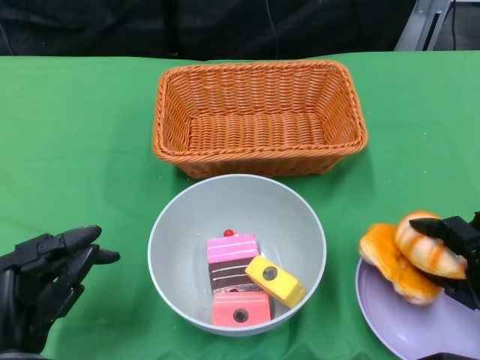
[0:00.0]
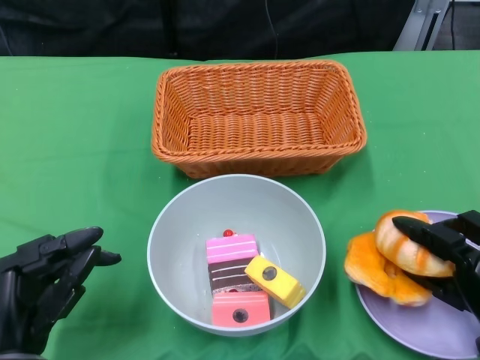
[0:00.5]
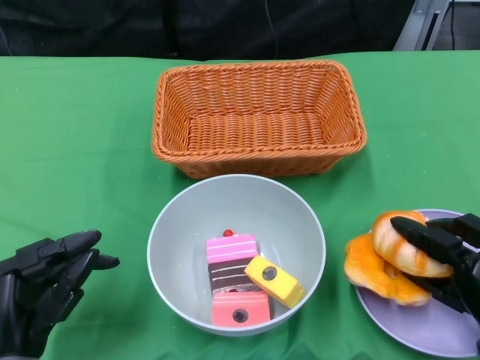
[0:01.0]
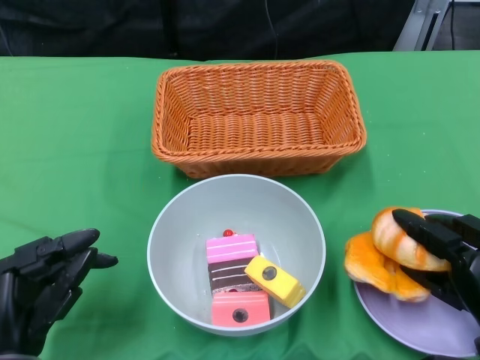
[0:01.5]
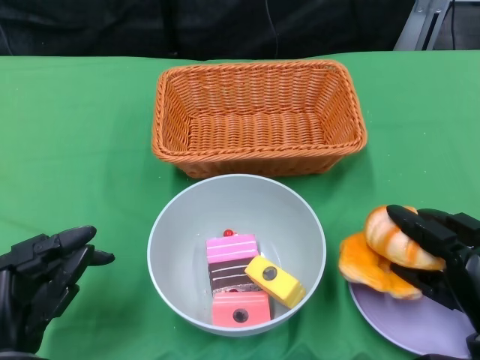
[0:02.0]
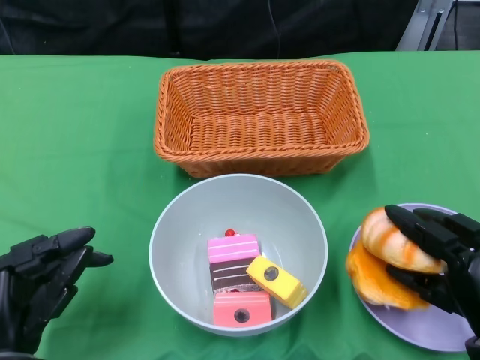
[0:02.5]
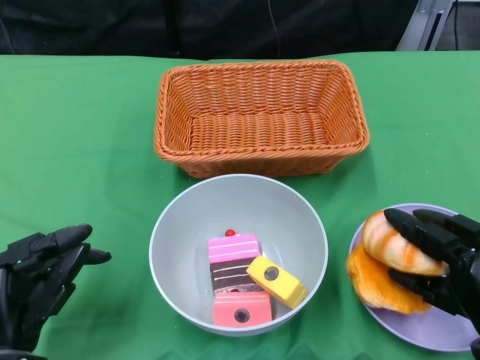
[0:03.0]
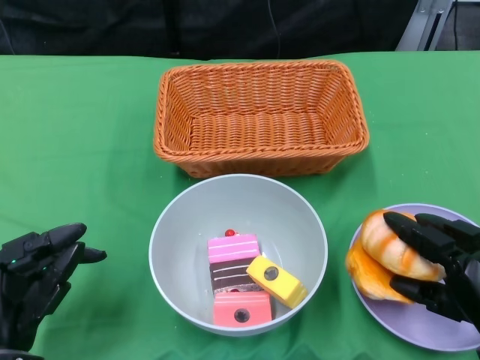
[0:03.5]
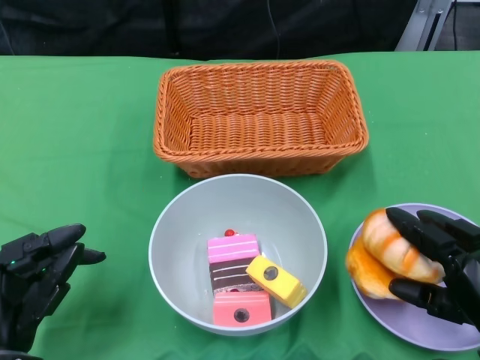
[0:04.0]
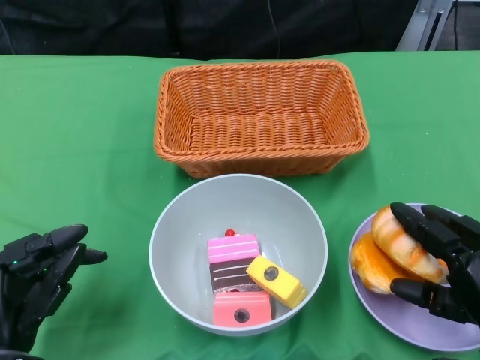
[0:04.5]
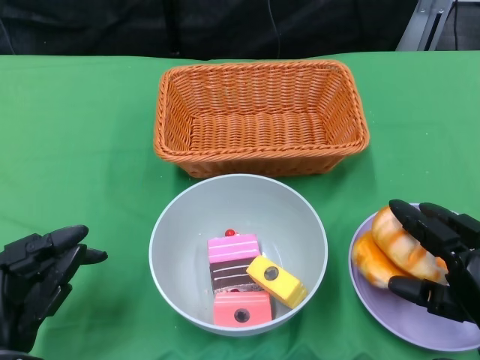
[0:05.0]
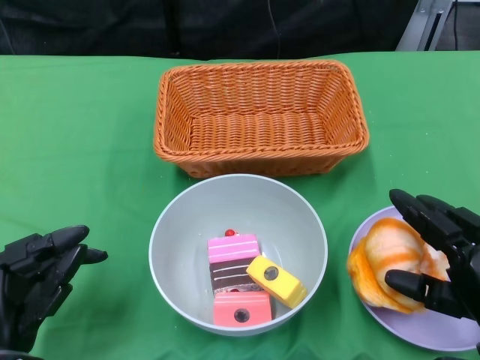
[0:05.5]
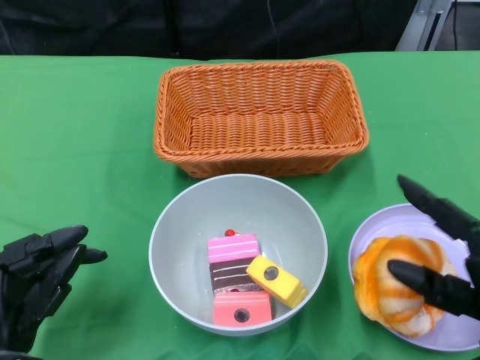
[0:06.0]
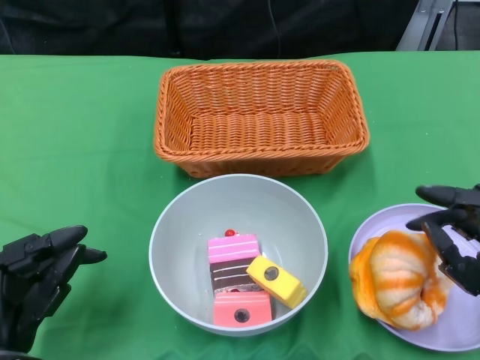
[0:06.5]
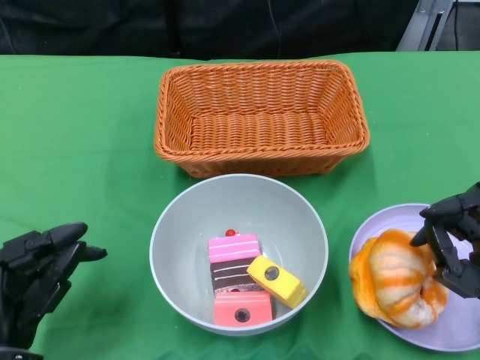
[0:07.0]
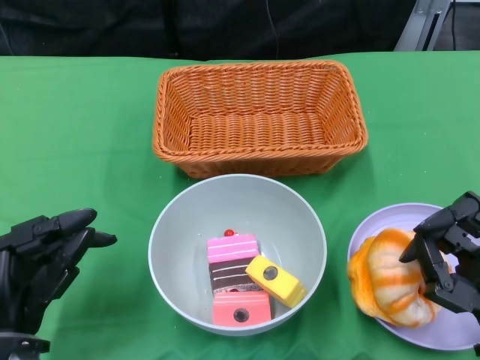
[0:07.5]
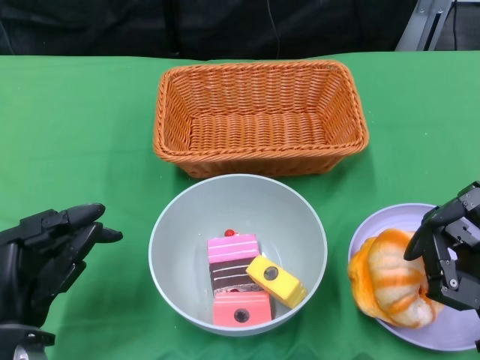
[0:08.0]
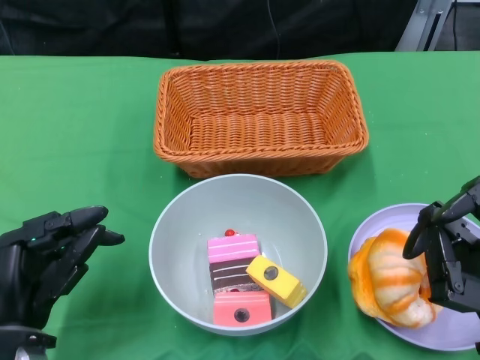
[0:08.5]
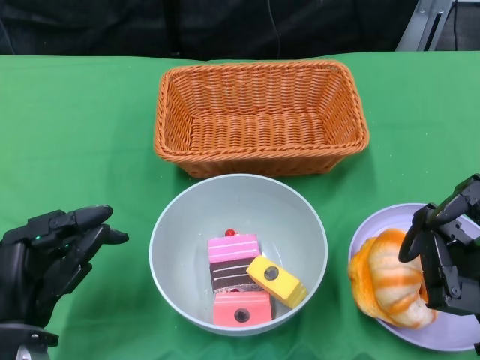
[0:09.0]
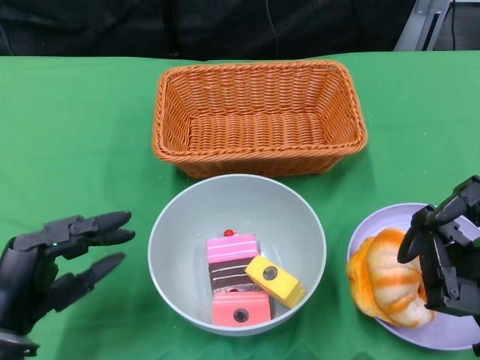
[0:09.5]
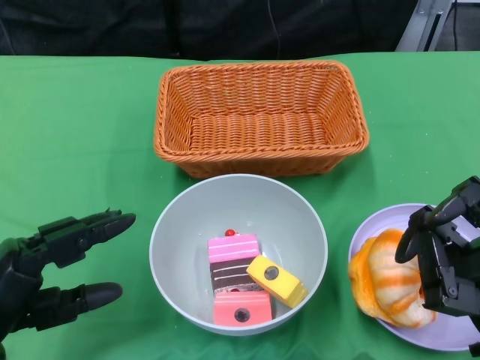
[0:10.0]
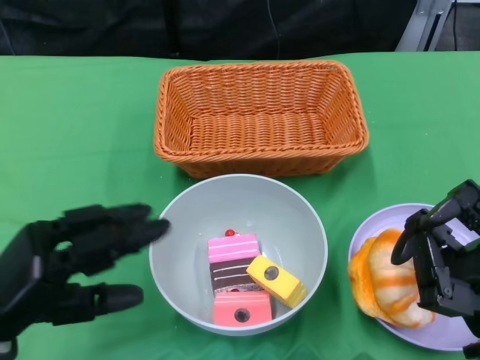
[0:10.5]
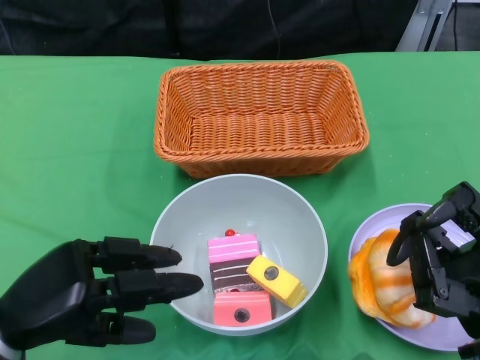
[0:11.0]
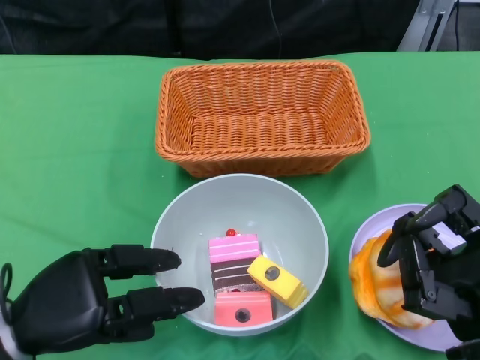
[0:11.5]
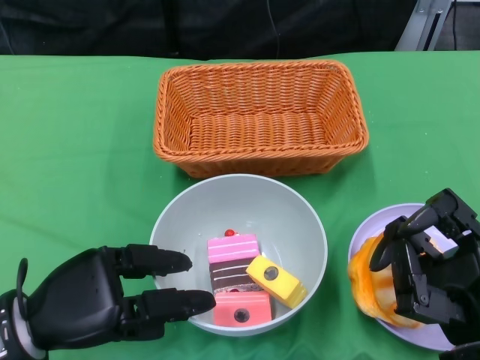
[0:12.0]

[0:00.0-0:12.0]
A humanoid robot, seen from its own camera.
Step, 0:00.0 to 0:08.5: Pick up the bread with the right gripper and place it on the plate.
0:00.0 to 0:04.0: The hands move only a little.
0:08.0 to 0:10.0: The left hand ends up some 5 cm from where it was.

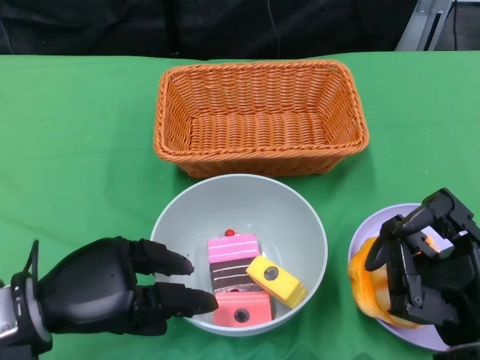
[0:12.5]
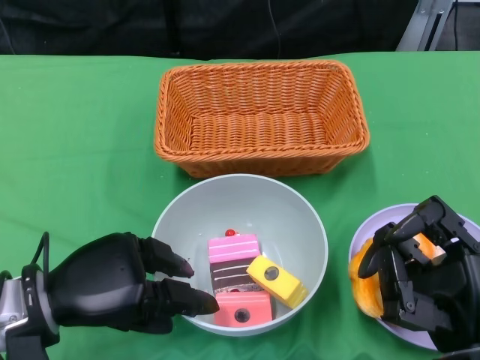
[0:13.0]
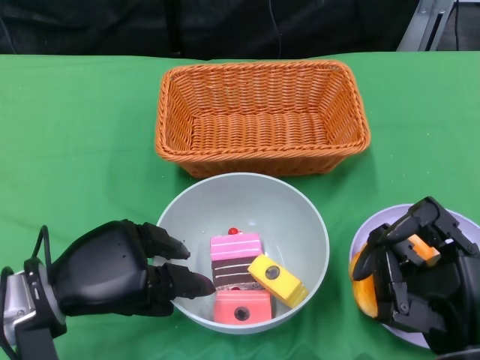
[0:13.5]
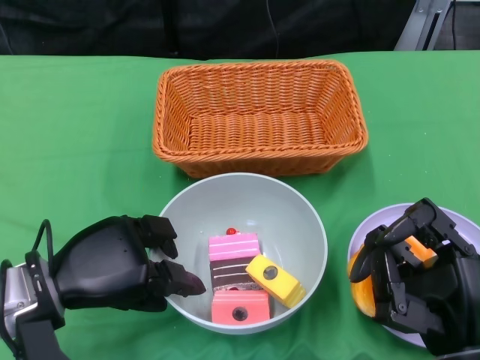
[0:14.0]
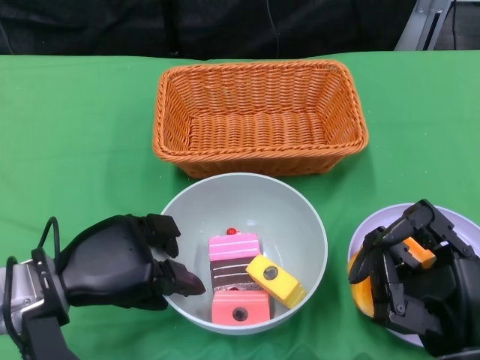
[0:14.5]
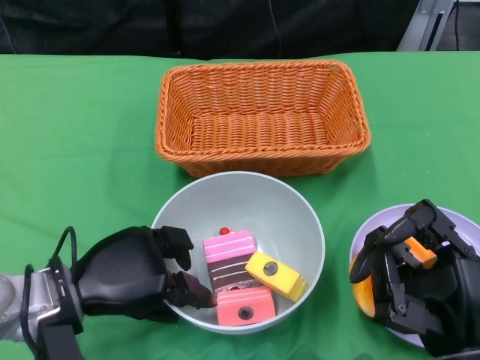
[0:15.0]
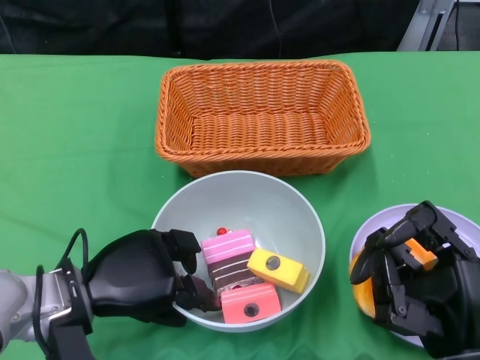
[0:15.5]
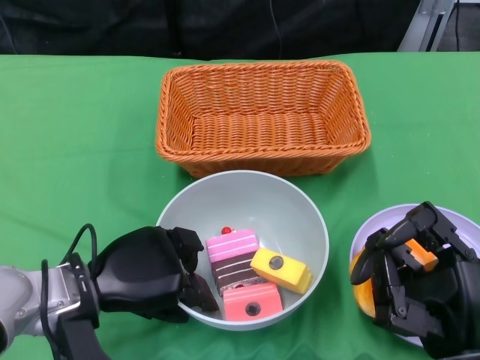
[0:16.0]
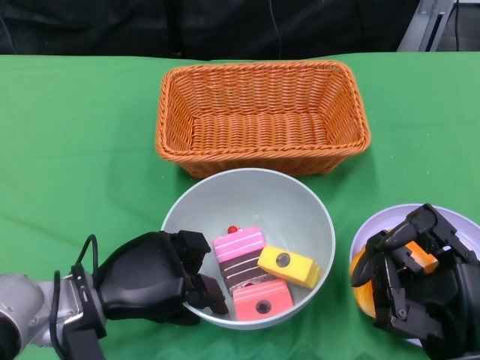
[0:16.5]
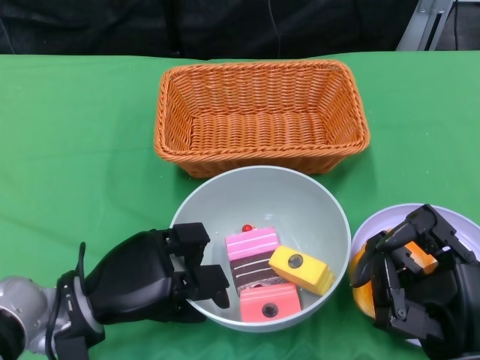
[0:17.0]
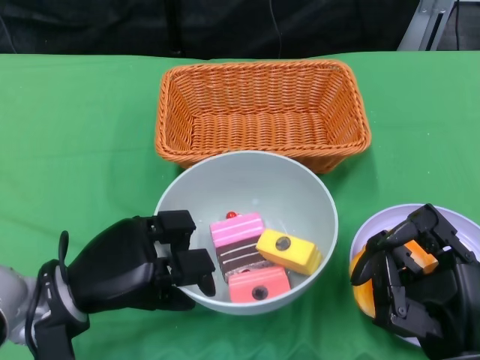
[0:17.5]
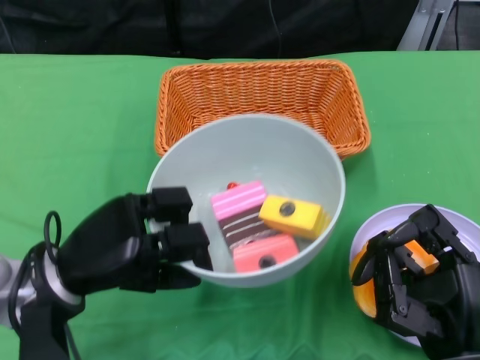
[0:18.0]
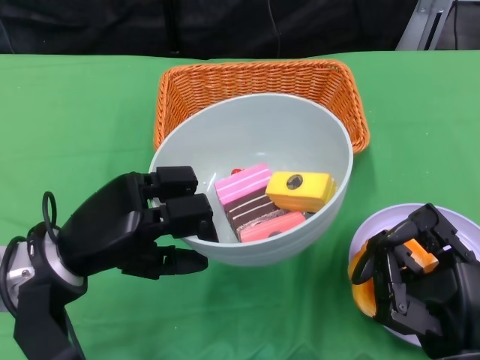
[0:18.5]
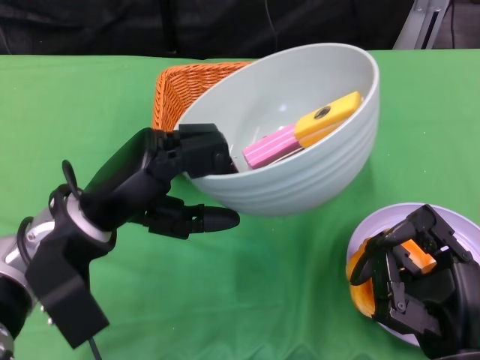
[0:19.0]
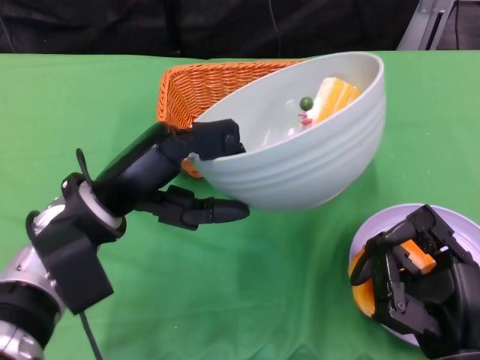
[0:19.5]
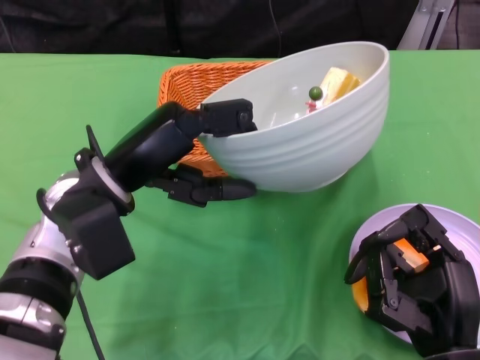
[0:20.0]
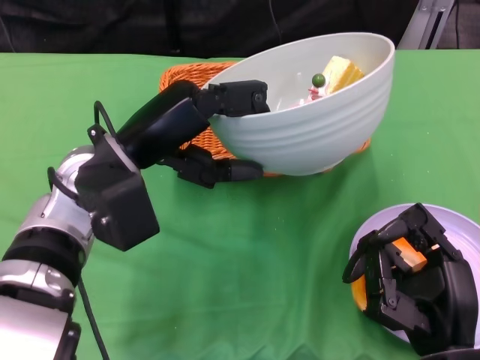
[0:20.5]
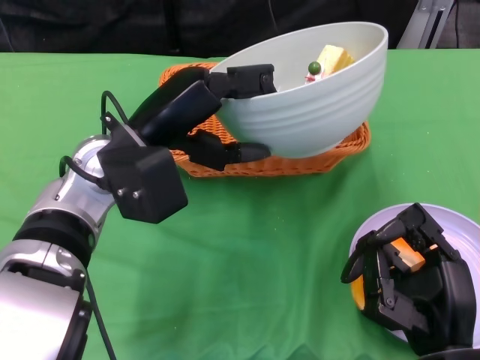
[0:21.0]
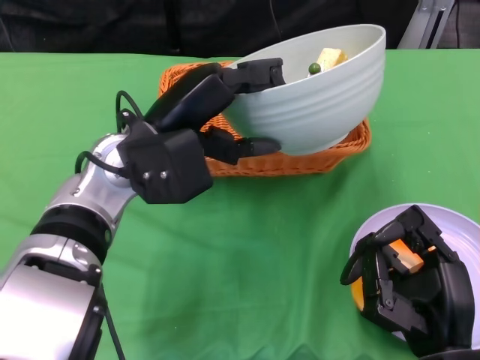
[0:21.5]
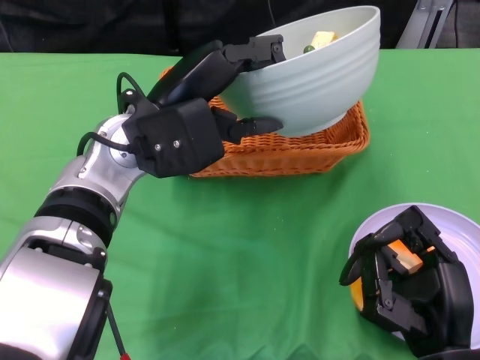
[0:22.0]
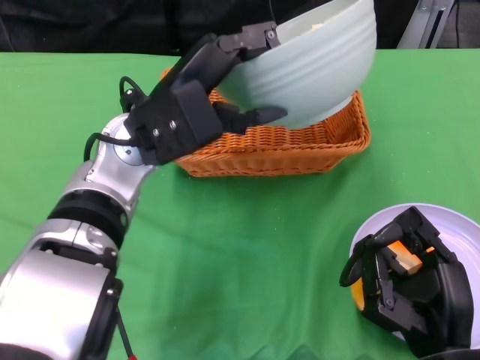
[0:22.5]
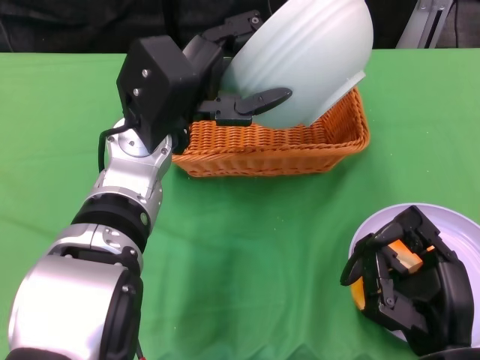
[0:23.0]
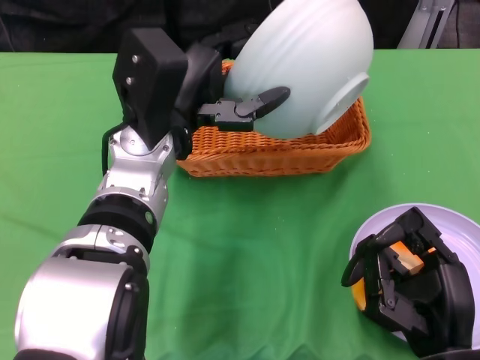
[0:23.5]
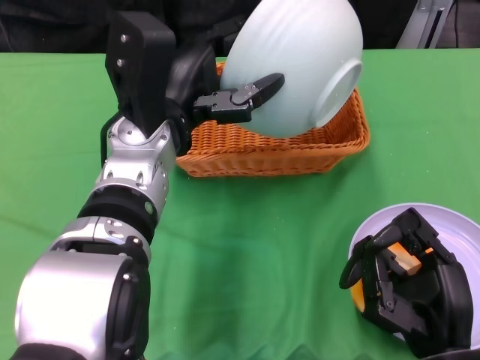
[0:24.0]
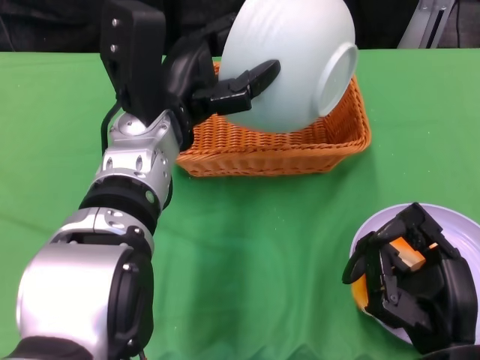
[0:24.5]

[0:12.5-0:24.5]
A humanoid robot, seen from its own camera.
Step, 0:12.5 to 0:16.0: Grasp the bowl with the left gripper.
0:12.5 to 0:14.5: The hands stay close to where they were, moving slightly.
0:16.5 to 0:18.5: The left hand shifts roughly 5 cm upward.
0:18.5 to 0:20.5: The left hand goes about 10 cm upward, forward and to the right.

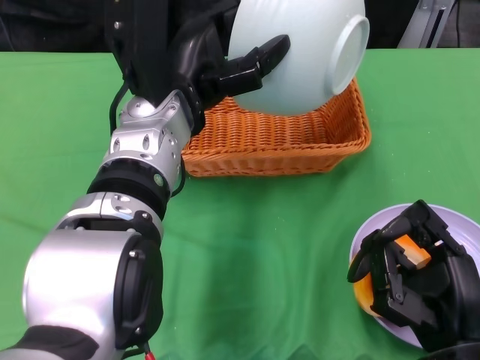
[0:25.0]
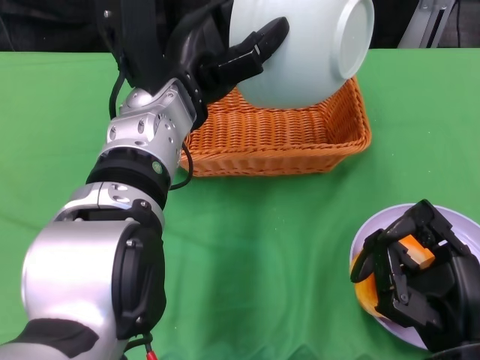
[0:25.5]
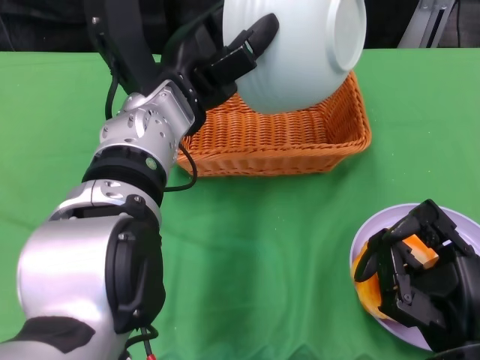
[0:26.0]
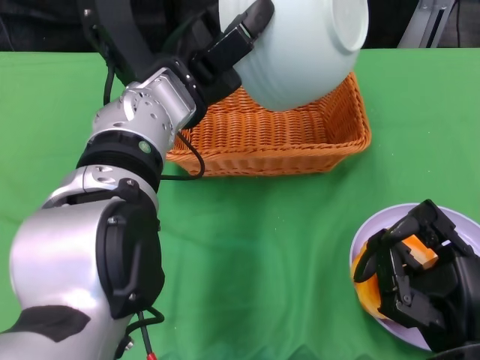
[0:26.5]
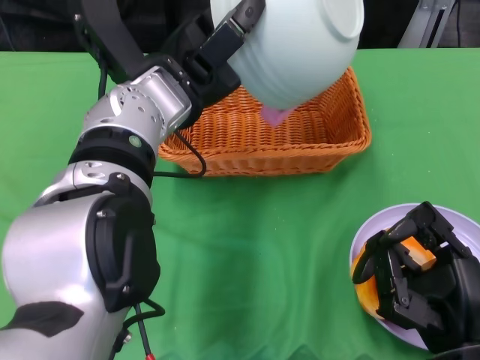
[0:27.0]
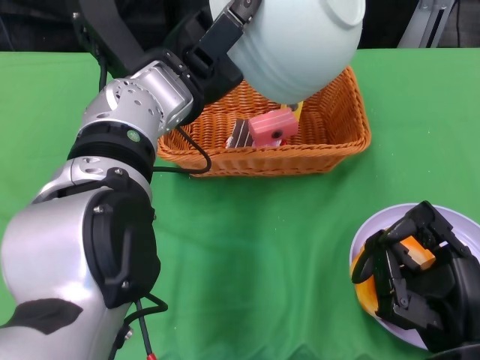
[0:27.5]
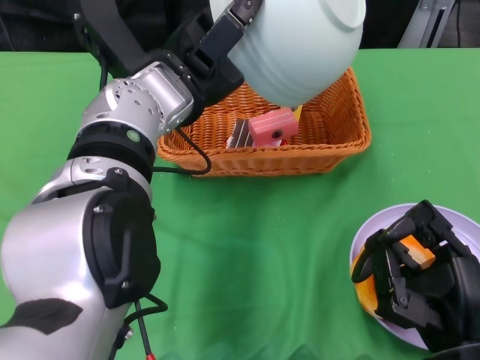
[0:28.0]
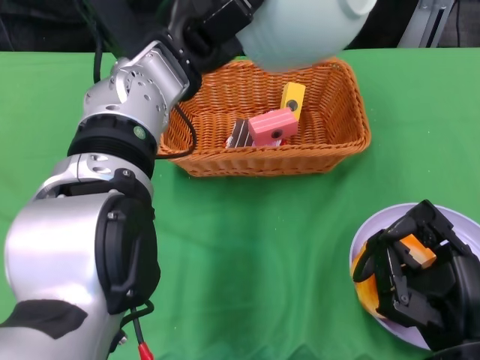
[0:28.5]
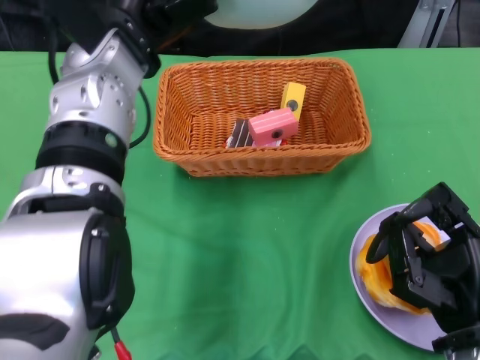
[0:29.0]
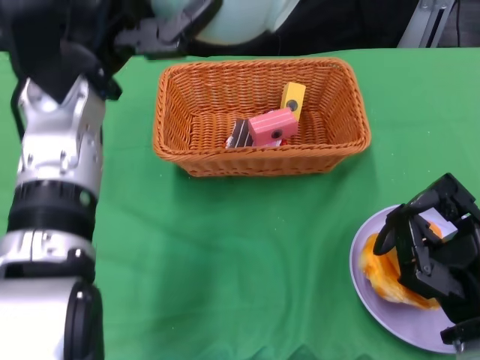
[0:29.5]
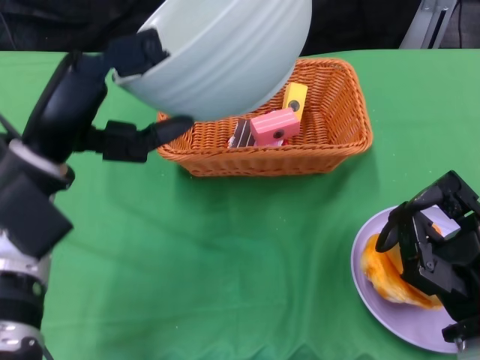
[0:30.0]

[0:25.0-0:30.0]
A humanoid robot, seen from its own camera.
Step, 0:25.0 to 0:28.5: Pour the cake into the basket with the left gripper.
0:27.5 to 0:30.0: The left hand heads to the left and backward, covering approximately 15 cm.
